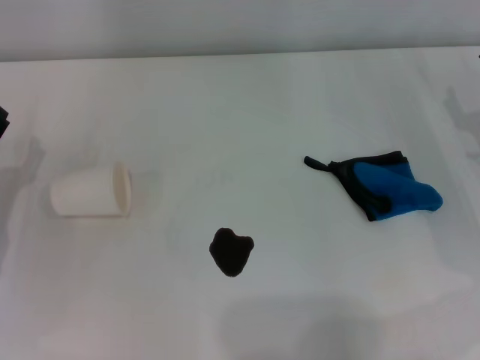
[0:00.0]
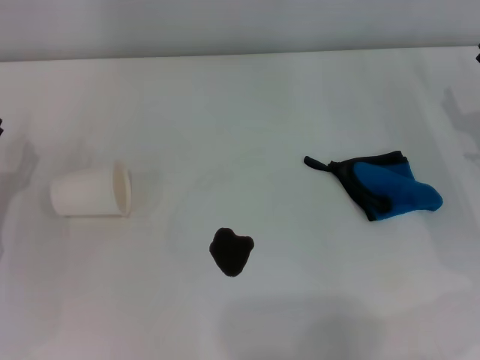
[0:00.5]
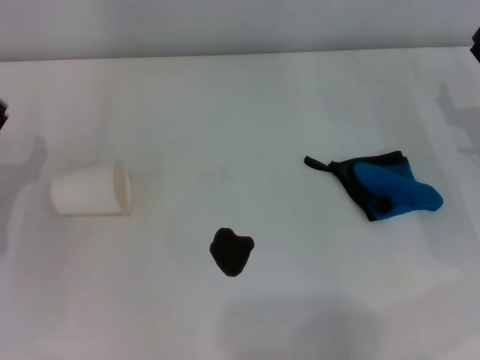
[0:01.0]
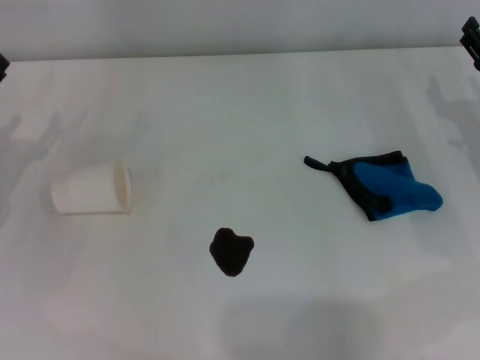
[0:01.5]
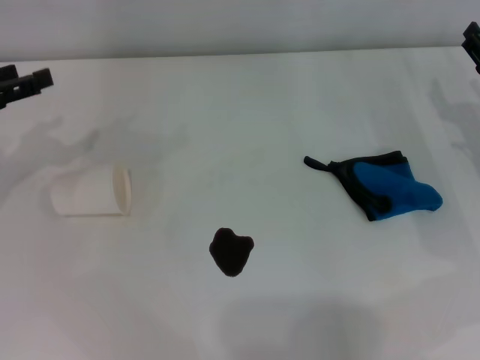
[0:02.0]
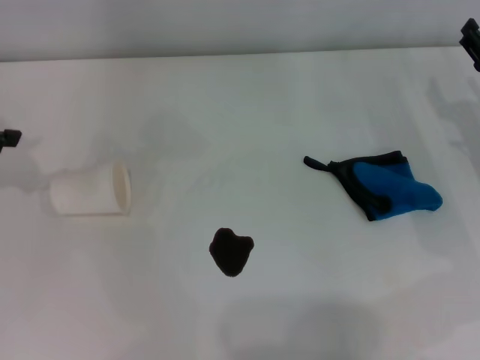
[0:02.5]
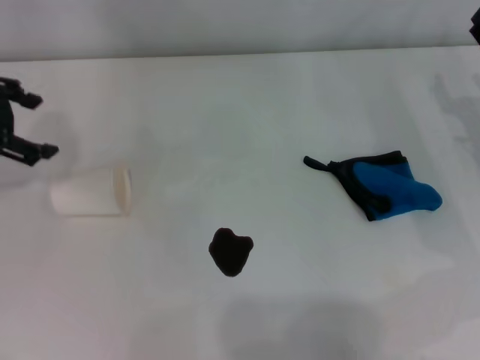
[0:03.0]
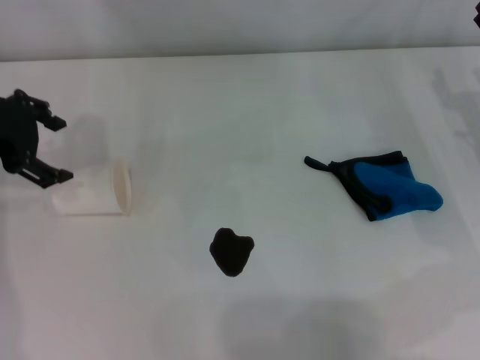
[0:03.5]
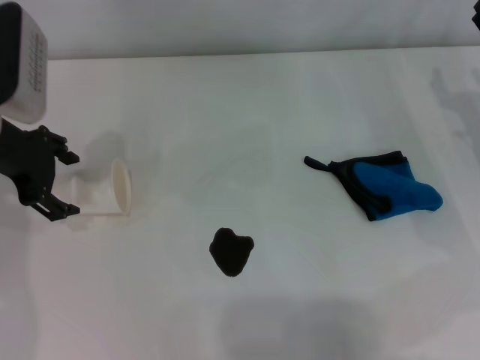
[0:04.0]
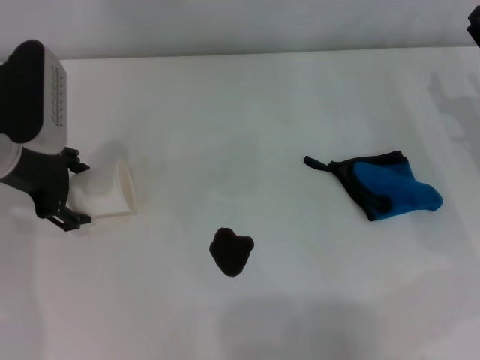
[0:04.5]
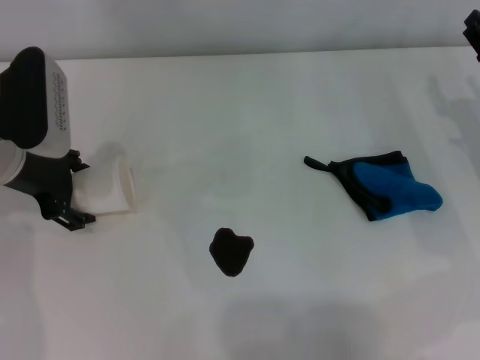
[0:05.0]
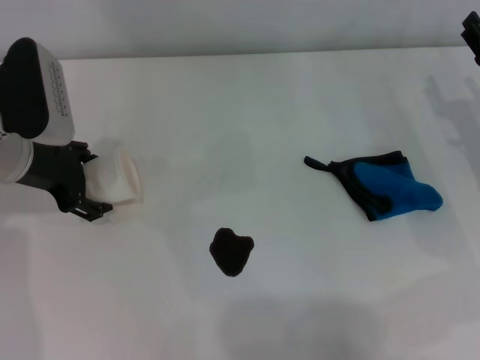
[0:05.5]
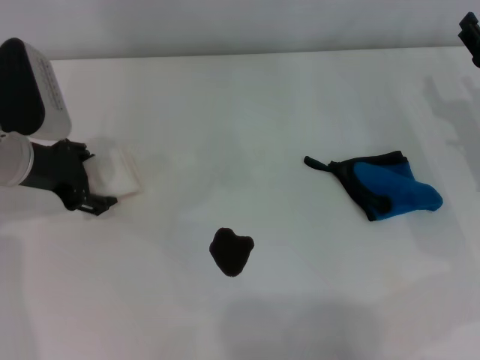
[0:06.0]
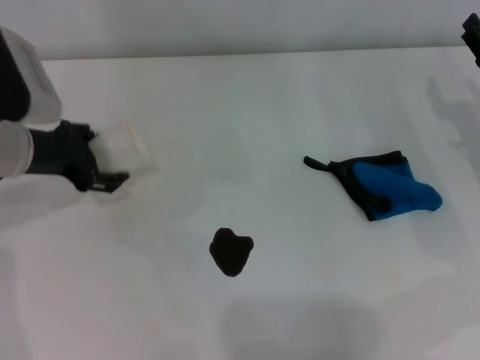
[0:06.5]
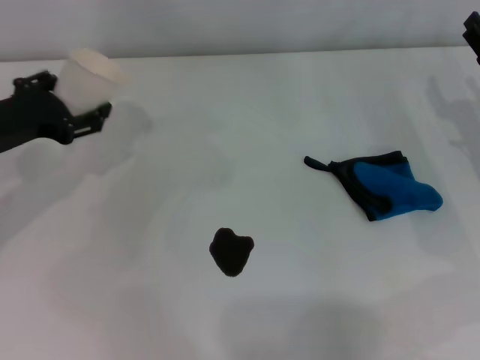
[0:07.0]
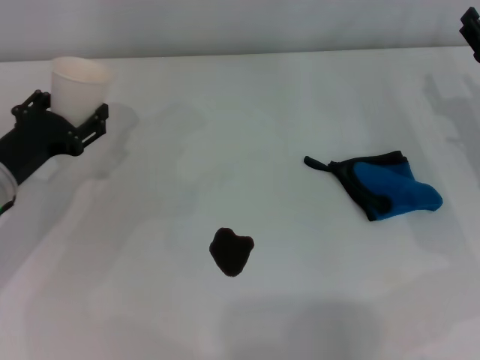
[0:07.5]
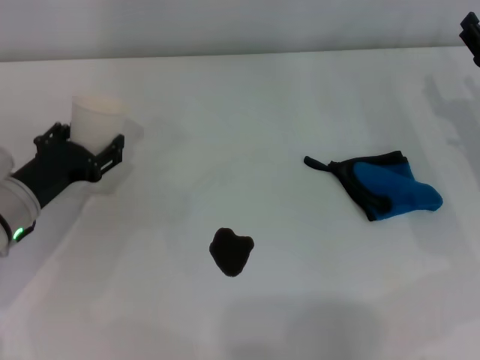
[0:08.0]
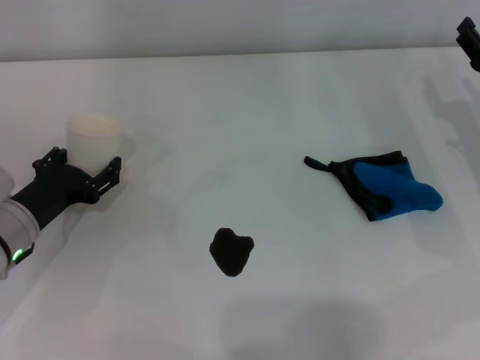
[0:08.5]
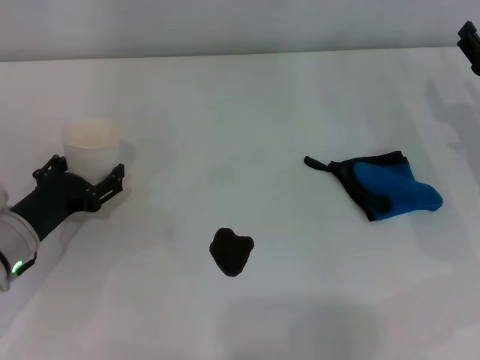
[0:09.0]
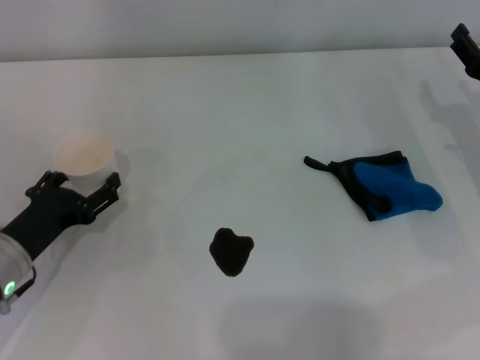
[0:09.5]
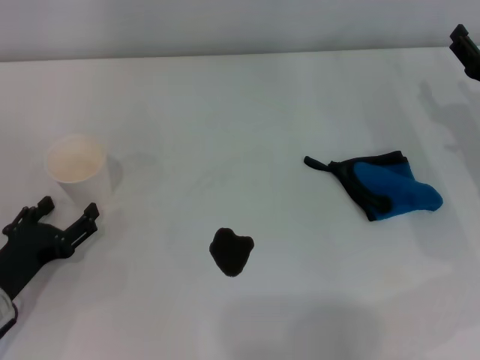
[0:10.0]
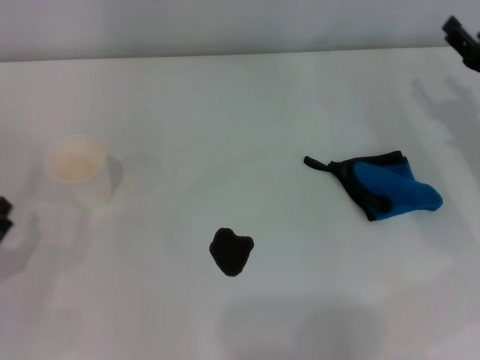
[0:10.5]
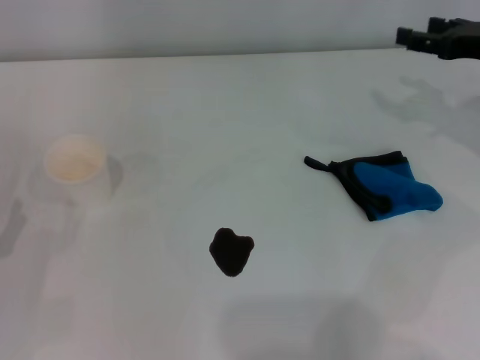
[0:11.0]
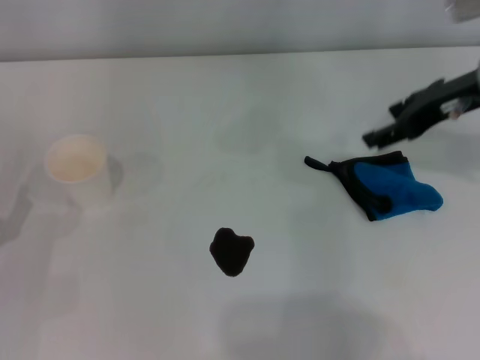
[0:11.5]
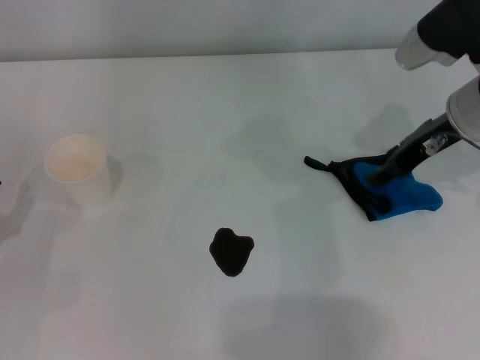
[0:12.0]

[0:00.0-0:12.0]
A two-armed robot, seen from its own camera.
Step, 0:00.0 to 0:05.0: Grasp the paper cup with the left gripper.
Step, 0:05.5 to 0:09.5: Stand the paper cup upright with the left gripper.
0:00.0 to 0:02.0: The left gripper shifts approximately 15 cm upward and forward.
0:02.0 to 0:04.0: The left gripper moves to the right, approximately 10 cm.
0:04.0 to 0:06.0: The left gripper moves downward, about 5 cm.
0:06.0 to 0:08.0: The left gripper travels downward and backward by roughly 10 cm.
0:08.0 to 0:10.0: The left gripper shifts about 10 cm backward.
0:10.0 to 0:12.0: The right gripper moves upward and to the left, about 10 cm.

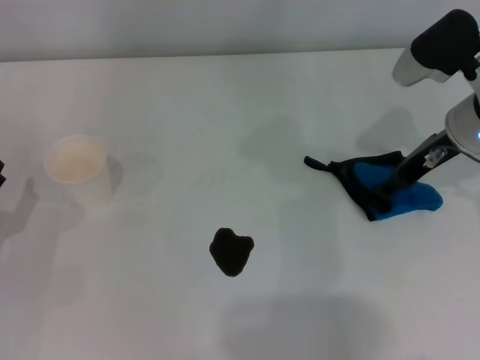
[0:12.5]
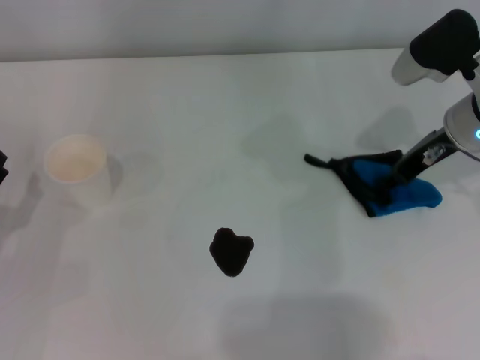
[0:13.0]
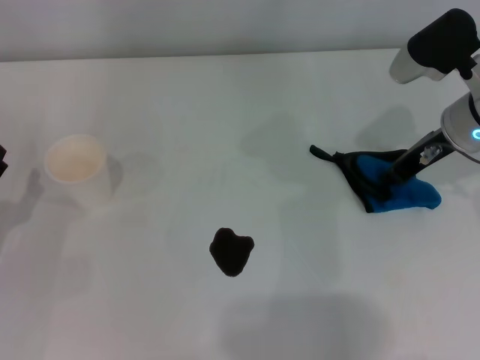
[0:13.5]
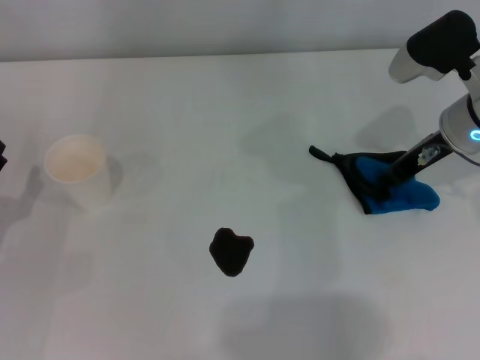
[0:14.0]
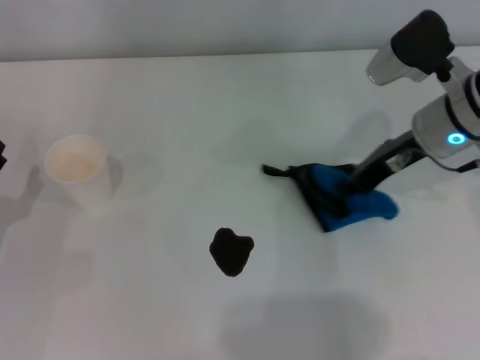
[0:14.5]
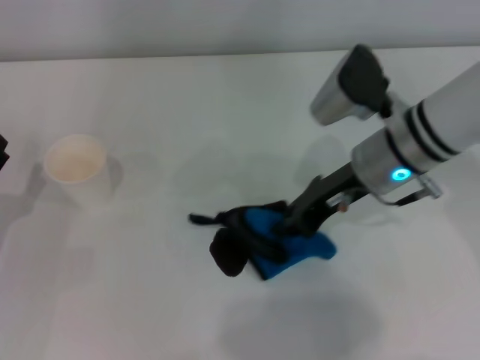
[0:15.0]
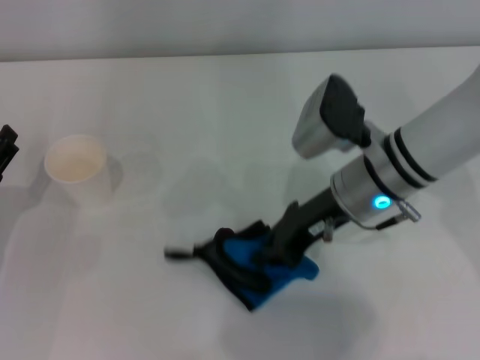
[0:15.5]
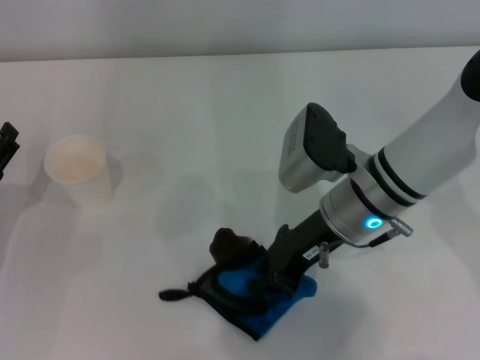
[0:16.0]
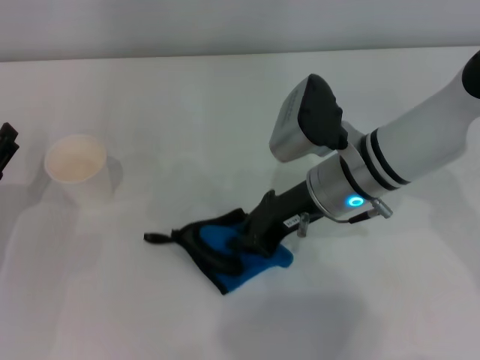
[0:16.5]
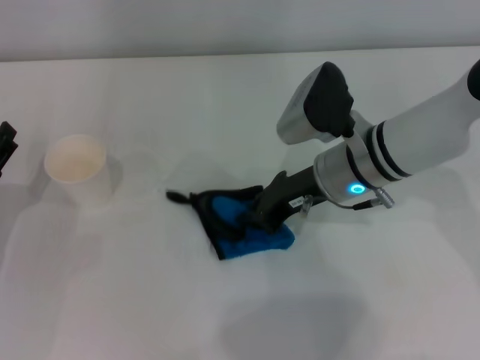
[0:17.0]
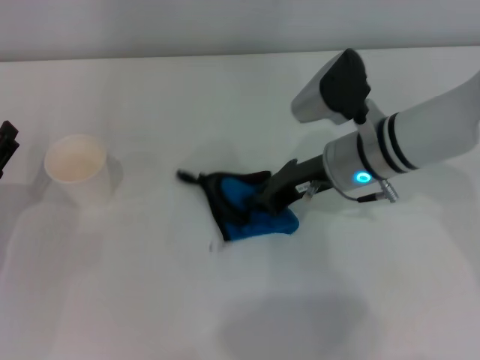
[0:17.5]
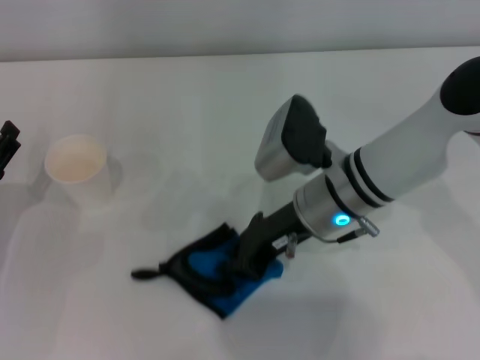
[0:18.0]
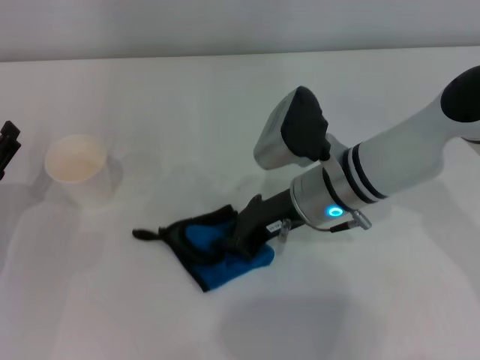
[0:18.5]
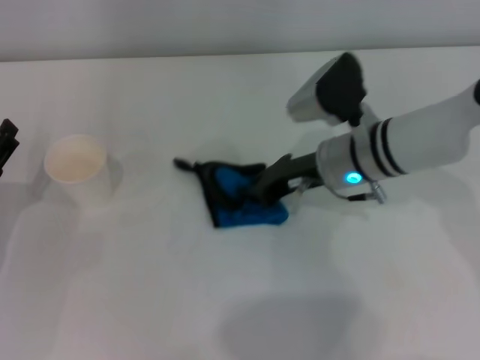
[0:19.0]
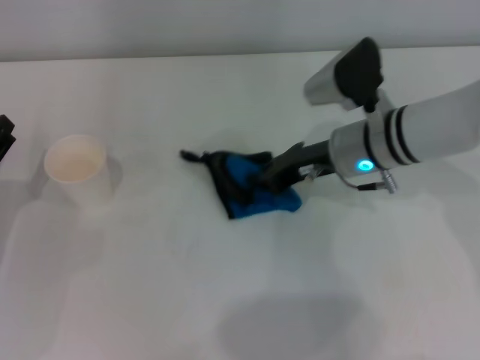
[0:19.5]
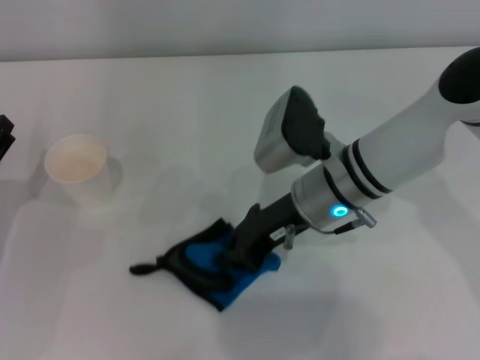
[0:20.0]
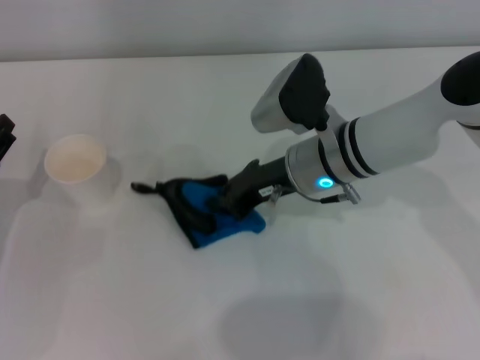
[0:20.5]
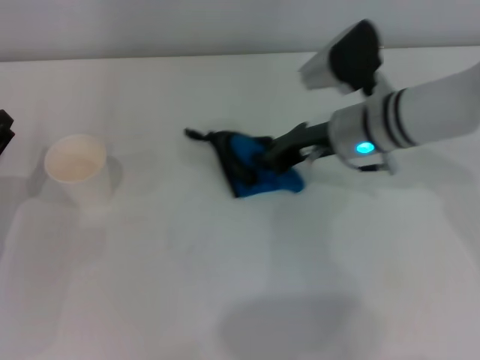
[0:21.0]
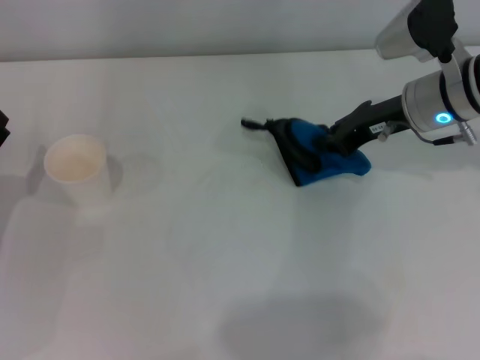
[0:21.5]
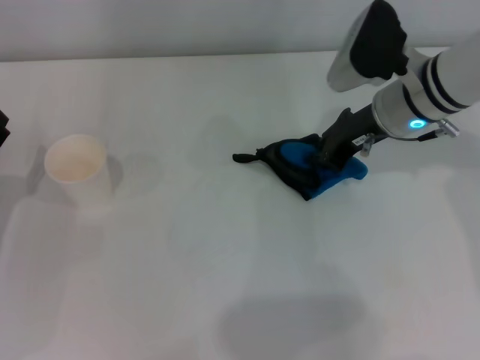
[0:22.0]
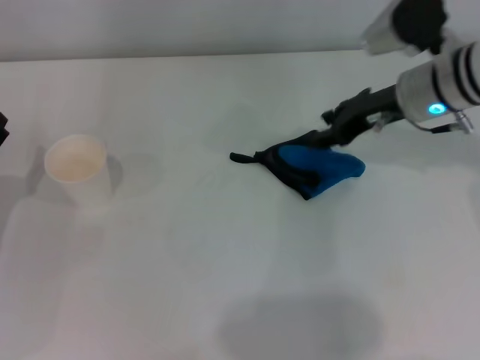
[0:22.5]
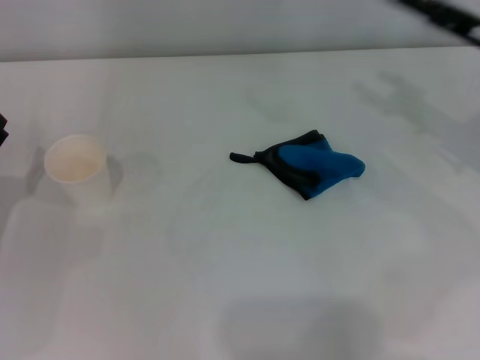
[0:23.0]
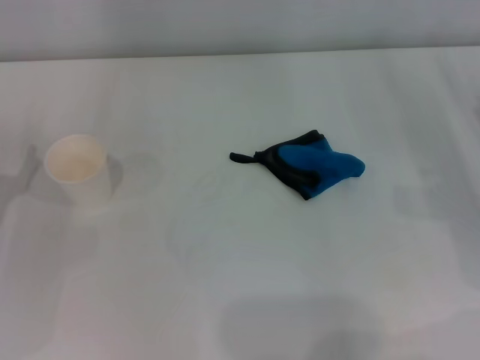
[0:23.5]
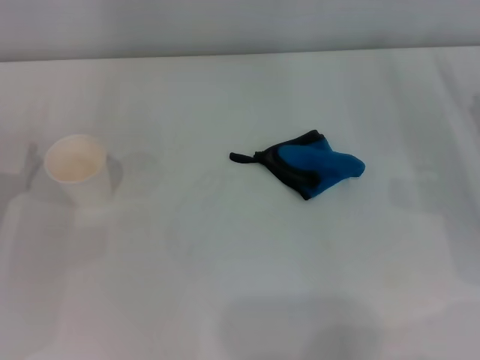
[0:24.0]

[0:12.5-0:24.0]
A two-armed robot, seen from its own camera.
Step, 0:14.0 to 0:21.0: Wipe the stains off the table with the right gripper.
Step, 0:21.5 to 0:22.0: Place the rag on the table with the right gripper.
0:12.5 to 0:14.5: The right gripper closes.
0:14.5 to 0:16.5: The right gripper goes approximately 10 cm to the left.
0:16.5 to 0:18.5: The grippers stay close to where they were, moving slightly.
0:20.0 to 0:22.0: The right gripper goes roughly 10 cm to the right and forward.
0:22.0 to 0:24.0: The right gripper heads to the right, backward and downward, covering about 20 cm, and opens.
